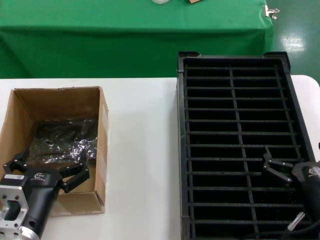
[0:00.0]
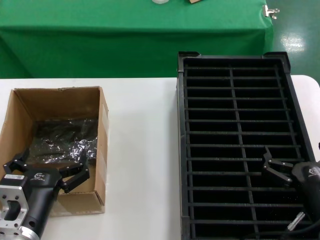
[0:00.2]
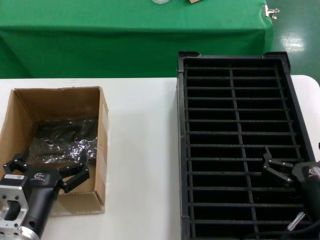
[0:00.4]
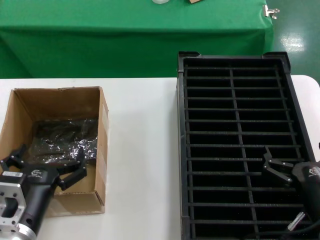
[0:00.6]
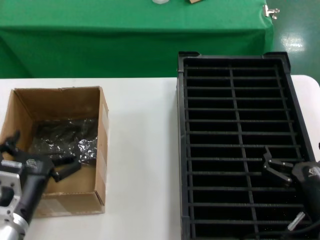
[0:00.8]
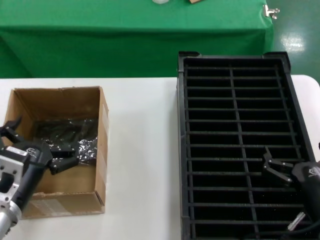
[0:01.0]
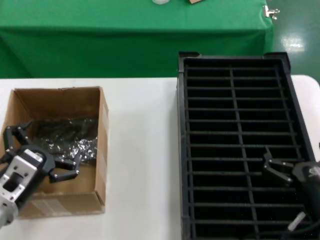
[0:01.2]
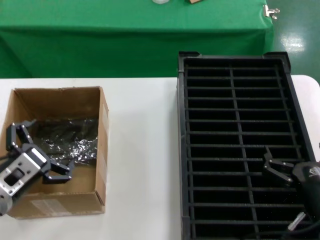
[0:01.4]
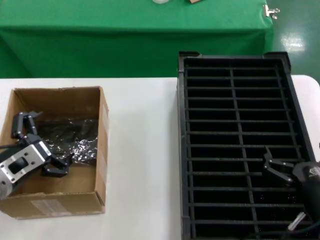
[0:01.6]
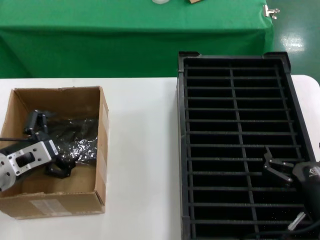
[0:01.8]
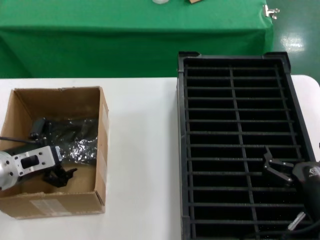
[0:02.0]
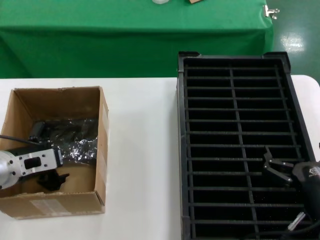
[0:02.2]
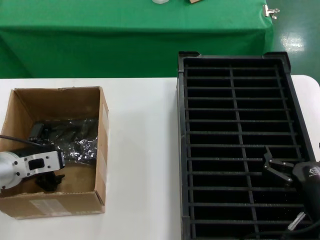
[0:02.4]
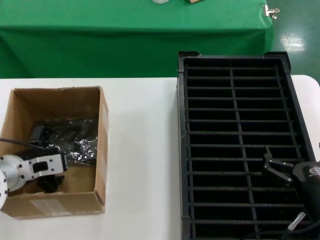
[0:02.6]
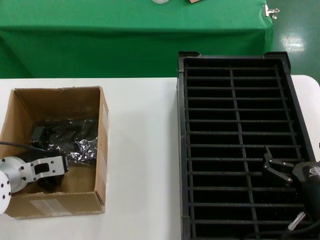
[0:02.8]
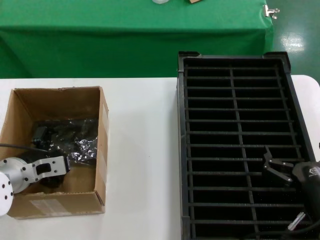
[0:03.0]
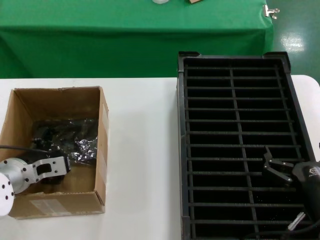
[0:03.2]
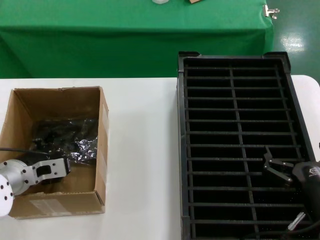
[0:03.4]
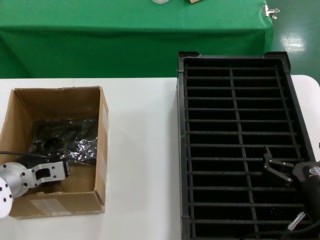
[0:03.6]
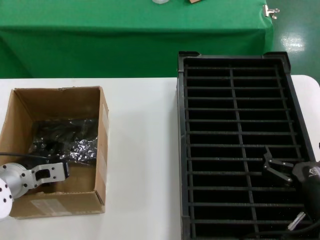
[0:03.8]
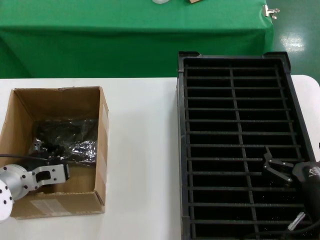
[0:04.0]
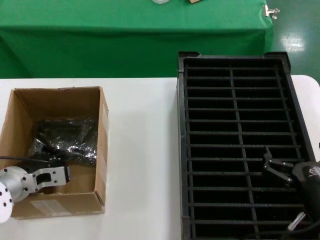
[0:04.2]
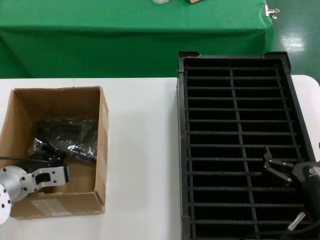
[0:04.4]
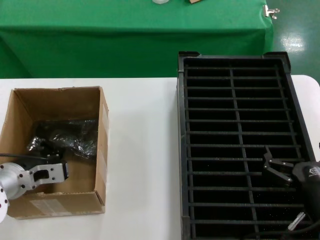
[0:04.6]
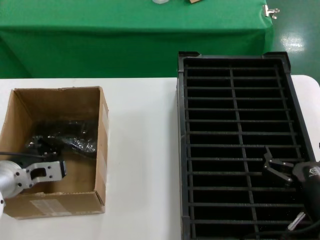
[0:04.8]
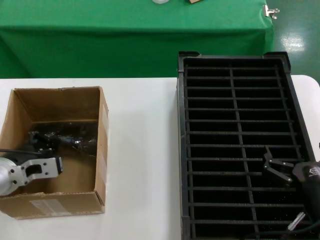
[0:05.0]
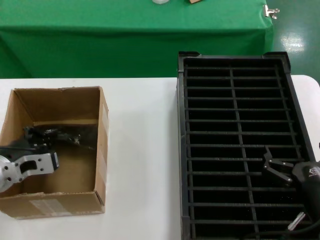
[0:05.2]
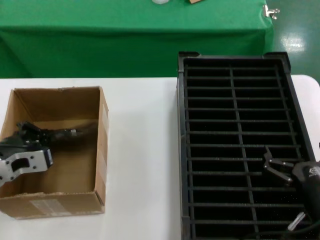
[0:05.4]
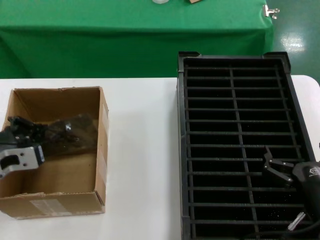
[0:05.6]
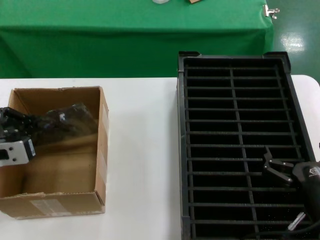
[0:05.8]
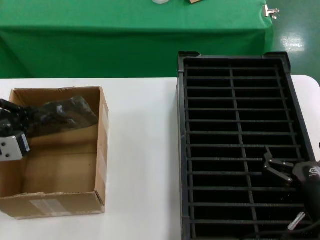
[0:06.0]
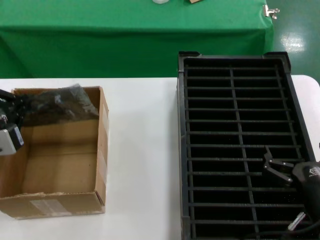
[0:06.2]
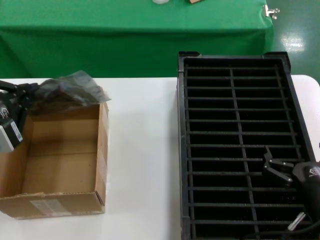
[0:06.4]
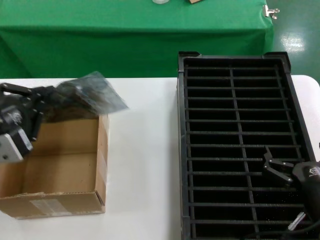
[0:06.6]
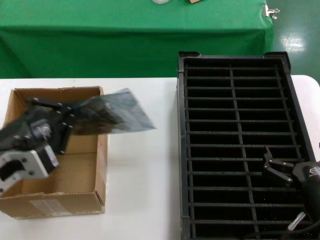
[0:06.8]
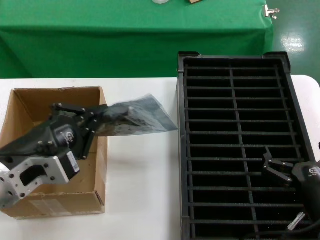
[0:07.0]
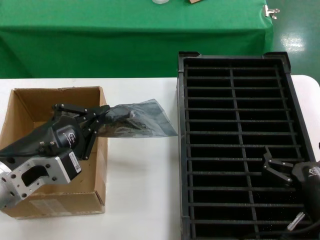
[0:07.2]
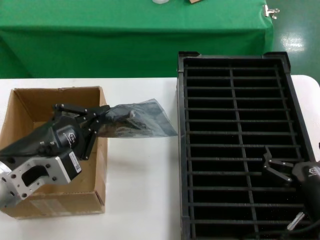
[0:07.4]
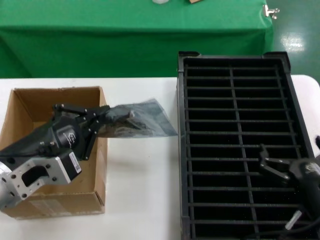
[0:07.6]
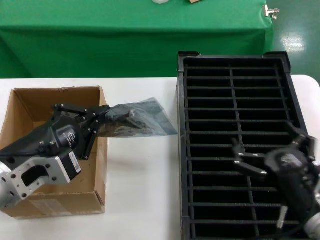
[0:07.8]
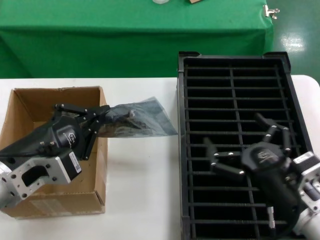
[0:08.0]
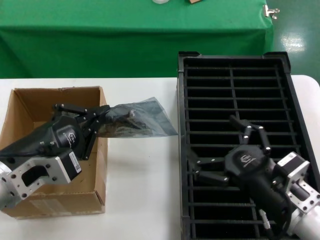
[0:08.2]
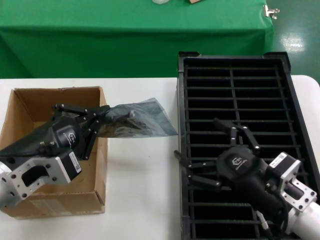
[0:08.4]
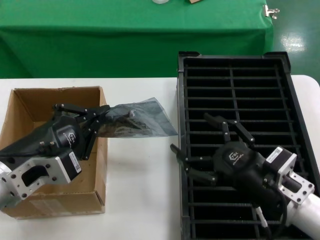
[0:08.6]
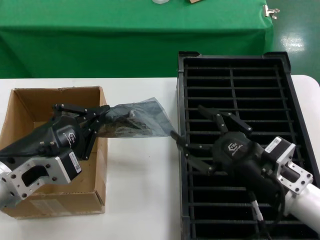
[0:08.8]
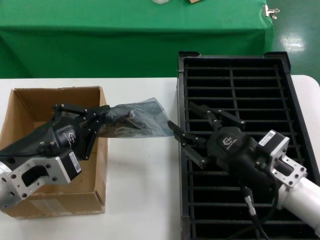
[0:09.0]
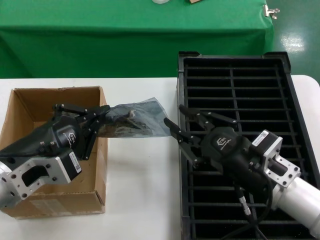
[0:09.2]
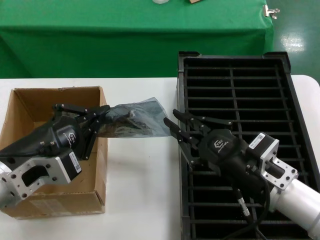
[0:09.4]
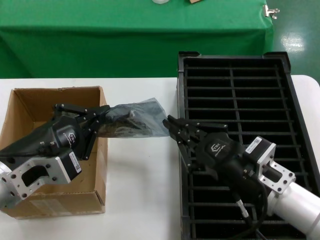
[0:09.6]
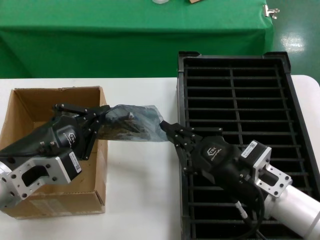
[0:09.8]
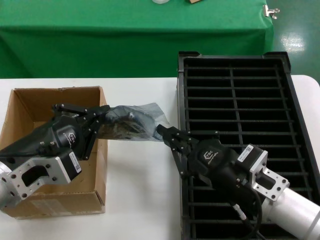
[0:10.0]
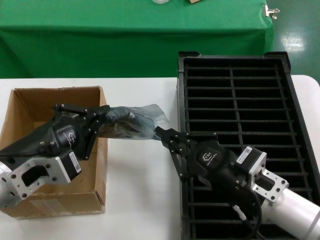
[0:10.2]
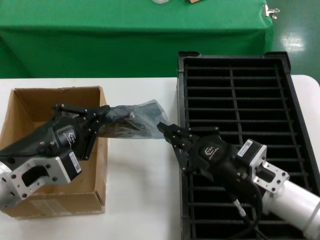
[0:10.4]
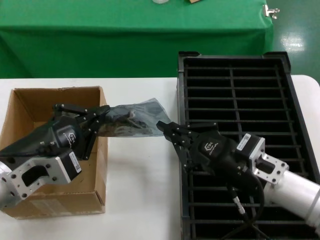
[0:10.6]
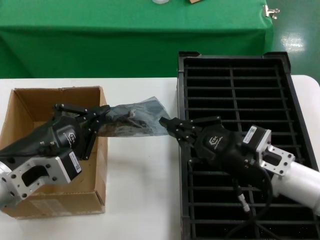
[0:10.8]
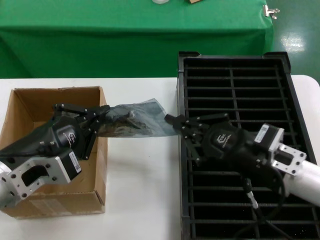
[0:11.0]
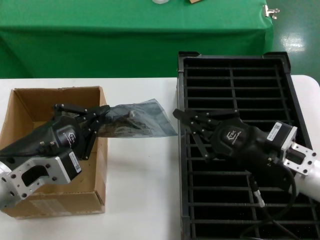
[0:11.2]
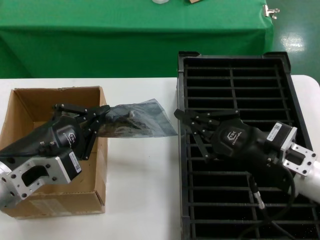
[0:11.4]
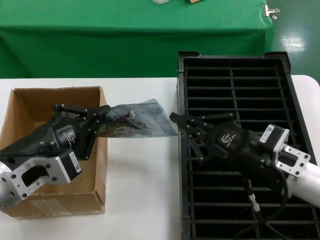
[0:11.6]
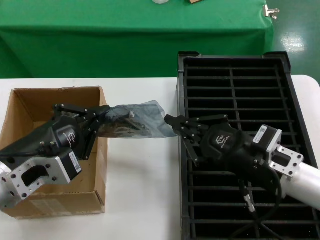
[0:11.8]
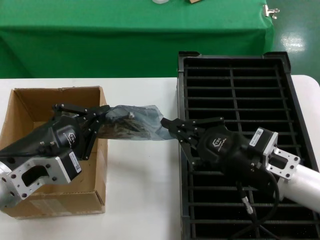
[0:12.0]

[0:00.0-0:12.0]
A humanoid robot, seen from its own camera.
Task of the whole recording: take out graphics card from box remove packaging put into black container.
Step, 0:00.0 to 0:04.4: Grasp the bag.
Step, 0:04.6 to 0:07.0: Lift the bag.
0:00.0 to 0:01.6: The left hand moves forward, to the left and upward, some 15 cm.
0:01.6 to 0:03.0: The left hand goes approximately 10 cm forward.
0:03.0 to 0:04.4: There are only small adjustments of the hands.
0:04.4 to 0:06.0: The left hand travels upward and backward by roughly 15 cm.
0:06.0 to 0:07.6: The left hand moves to the right and backward, approximately 10 cm.
0:07.6 to 0:09.0: The right hand moves upward and to the left, approximately 10 cm.
0:09.0 to 0:12.0: The hands stay close to where they were, moving slightly.

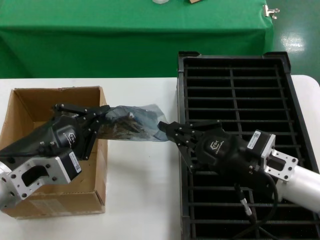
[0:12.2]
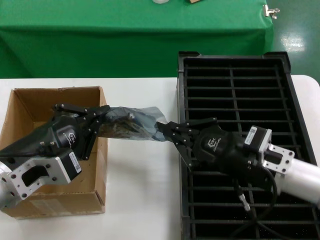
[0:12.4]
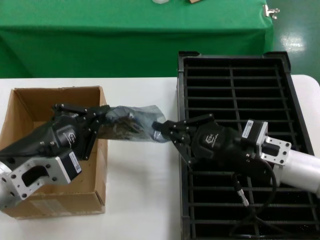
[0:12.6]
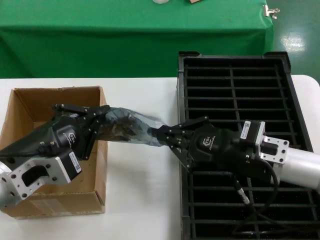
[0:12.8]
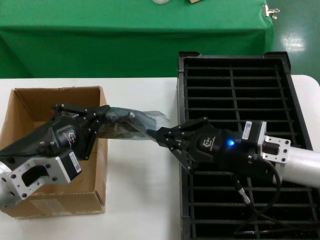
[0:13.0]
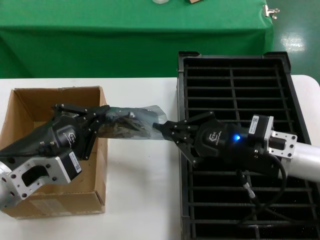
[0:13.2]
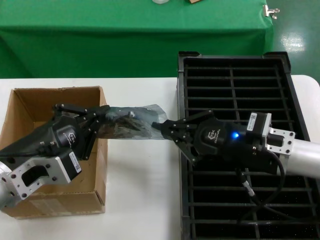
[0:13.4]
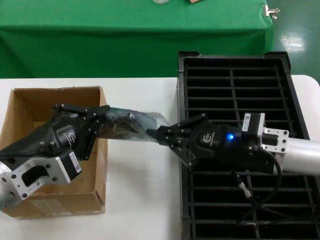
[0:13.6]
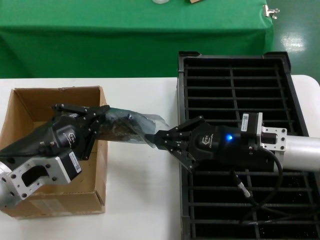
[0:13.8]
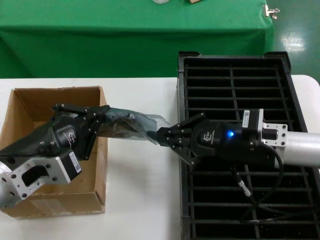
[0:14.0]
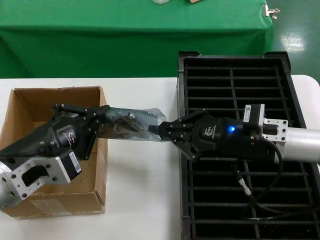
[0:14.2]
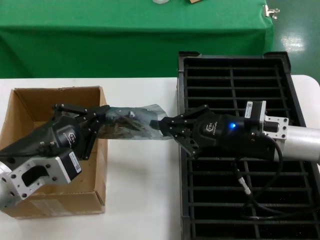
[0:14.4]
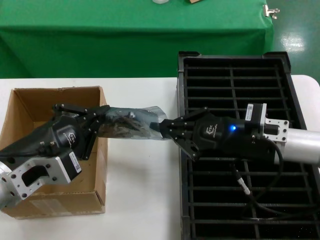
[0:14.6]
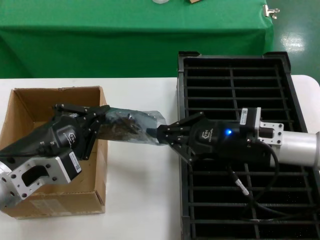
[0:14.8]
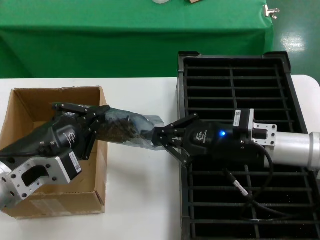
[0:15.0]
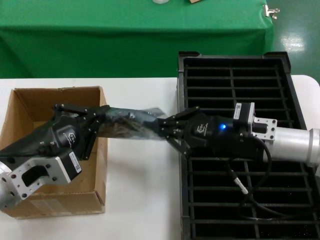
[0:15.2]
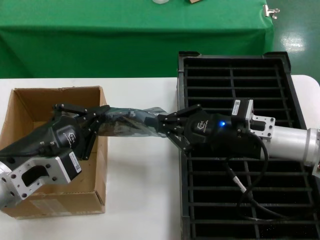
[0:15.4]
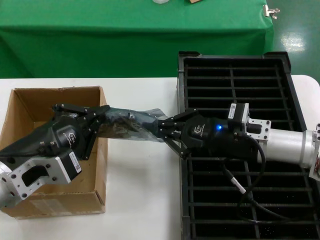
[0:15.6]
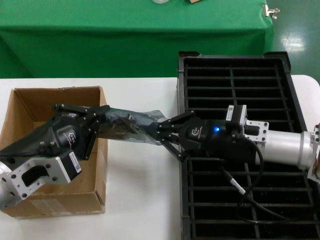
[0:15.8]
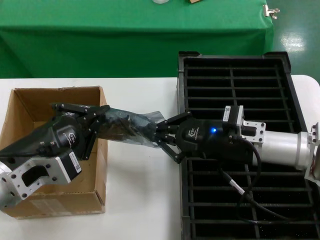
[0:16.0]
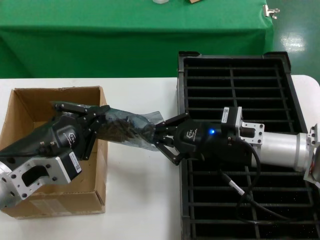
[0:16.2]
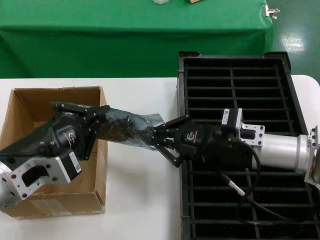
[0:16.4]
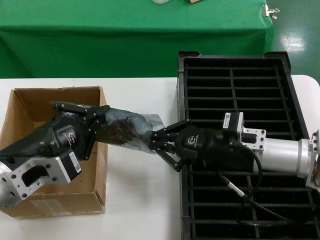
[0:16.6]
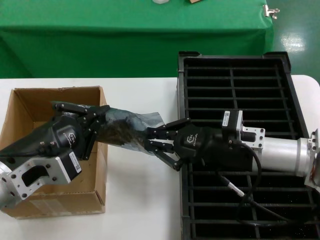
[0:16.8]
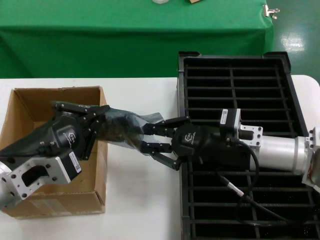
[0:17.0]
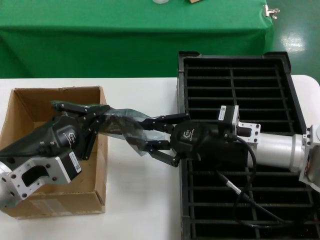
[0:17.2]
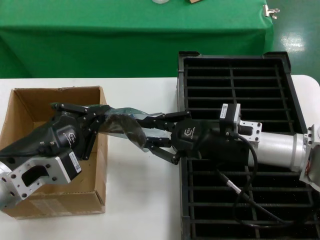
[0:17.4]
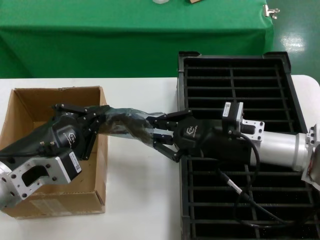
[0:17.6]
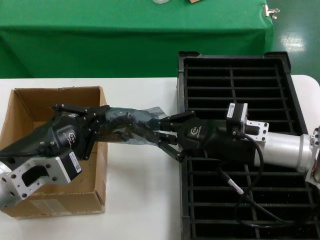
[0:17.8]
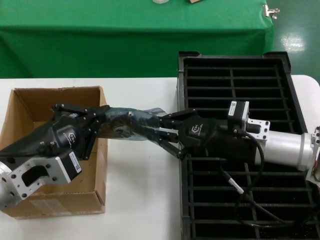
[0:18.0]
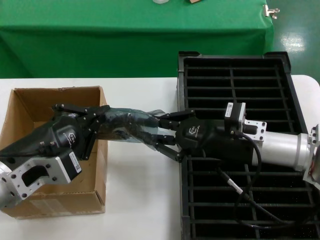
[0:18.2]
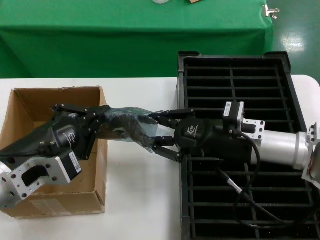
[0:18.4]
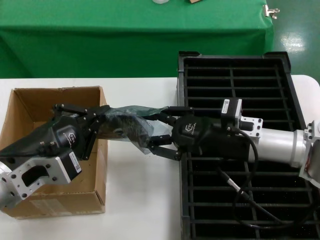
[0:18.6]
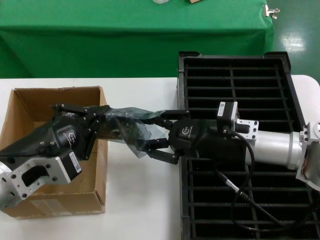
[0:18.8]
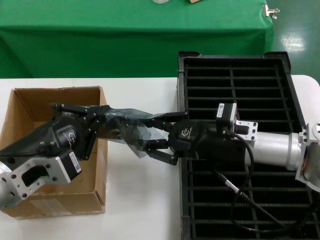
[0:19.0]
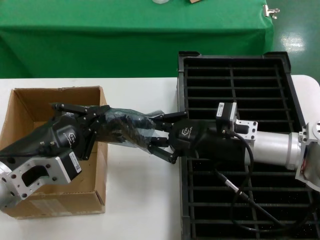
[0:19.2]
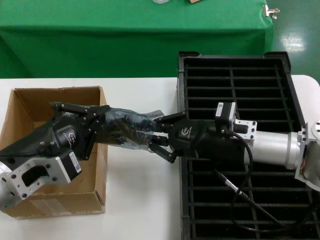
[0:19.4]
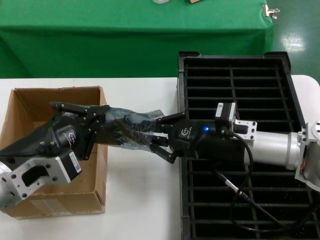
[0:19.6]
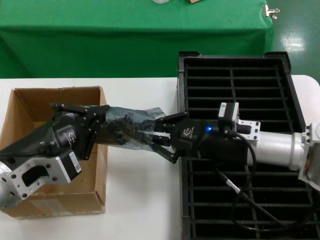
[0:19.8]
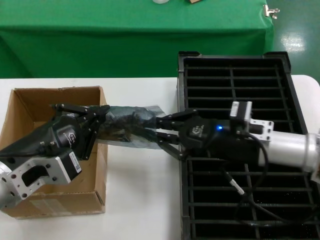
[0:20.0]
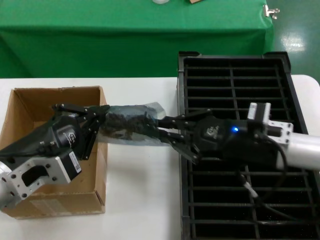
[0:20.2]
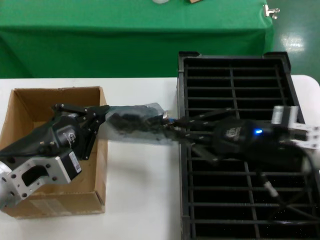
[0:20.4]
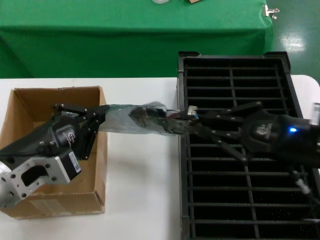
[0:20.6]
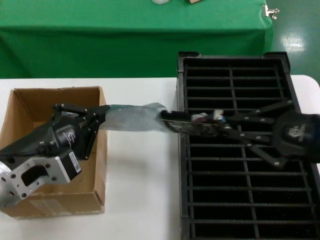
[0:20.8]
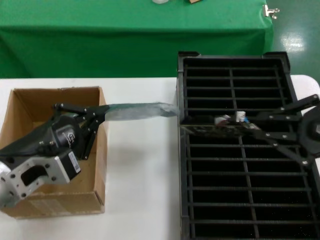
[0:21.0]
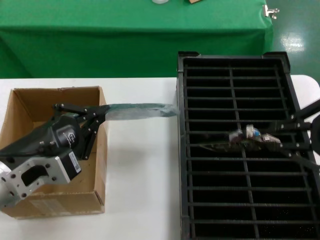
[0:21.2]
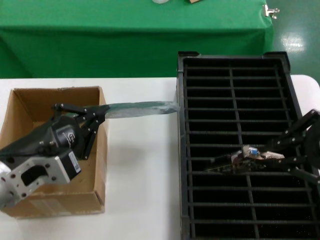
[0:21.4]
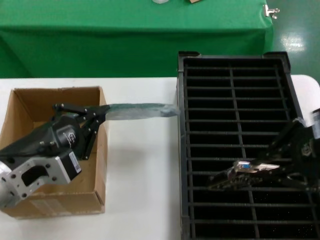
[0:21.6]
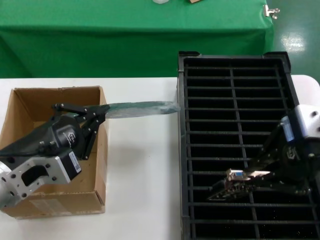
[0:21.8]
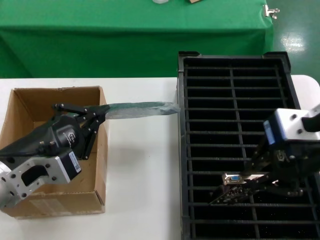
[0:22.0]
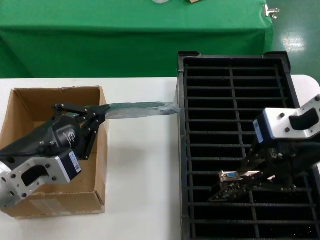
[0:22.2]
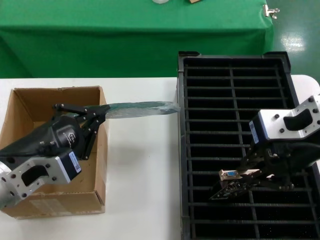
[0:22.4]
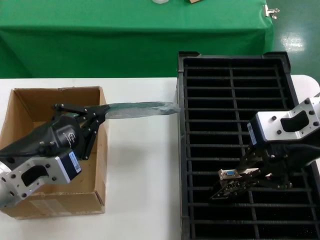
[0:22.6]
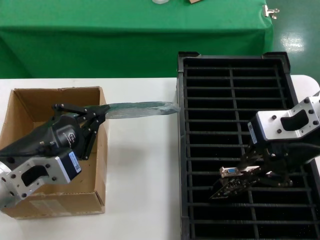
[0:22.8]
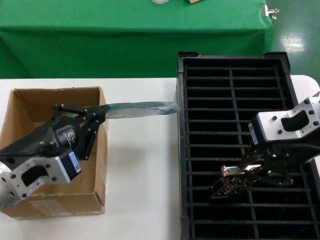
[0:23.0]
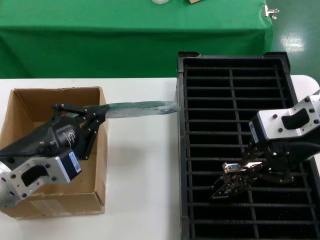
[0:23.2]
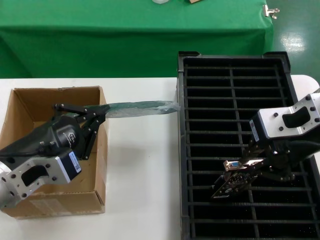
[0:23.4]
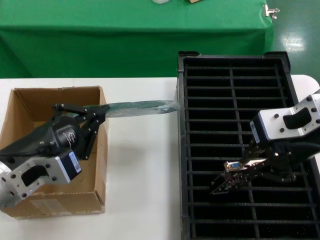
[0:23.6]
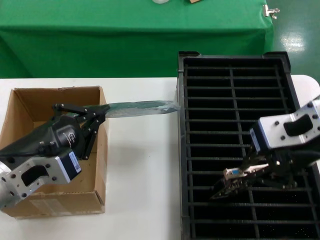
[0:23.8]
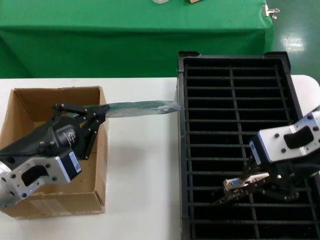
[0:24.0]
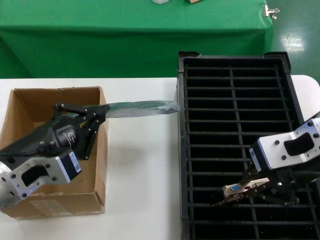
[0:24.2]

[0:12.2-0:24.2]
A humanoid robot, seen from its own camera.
Task of the whole recording: take out graphics card from box remove packaging put into black container.
Step, 0:12.2 to 0:20.8: Take out the hard disk of the bag.
0:12.2 to 0:13.8: The right hand moves forward, some 5 cm.
0:13.8 to 0:16.6: There are only small adjustments of the hands.
0:16.6 to 0:18.2: The two hands keep their place.
0:18.2 to 0:19.8: There are only small adjustments of the hands.
0:19.8 to 0:21.2: The right hand is displaced upward, backward and to the right by approximately 30 cm.
0:21.2 to 0:22.6: The right hand moves to the left, approximately 15 cm.
0:22.6 to 0:24.2: The hands stay close to where they were, moving slightly.
